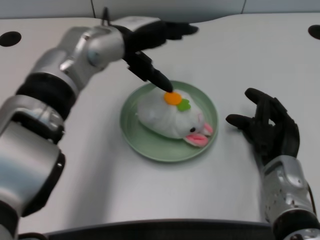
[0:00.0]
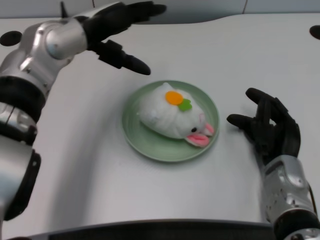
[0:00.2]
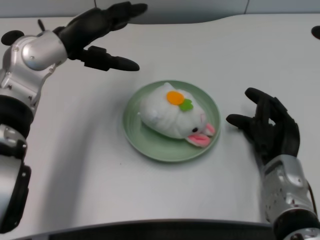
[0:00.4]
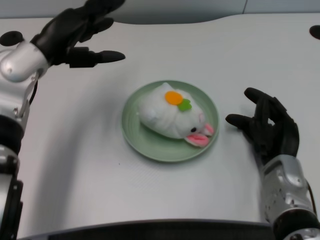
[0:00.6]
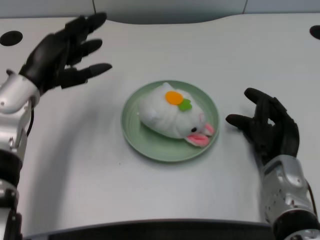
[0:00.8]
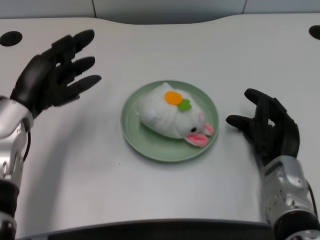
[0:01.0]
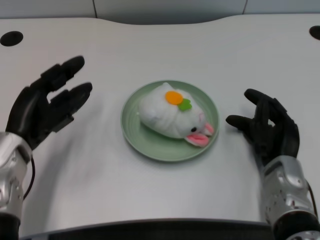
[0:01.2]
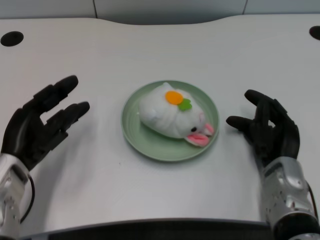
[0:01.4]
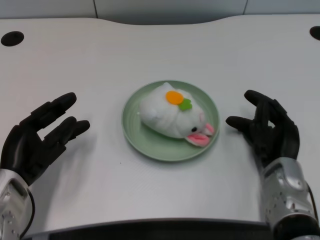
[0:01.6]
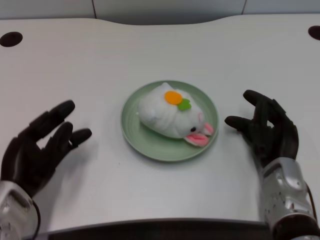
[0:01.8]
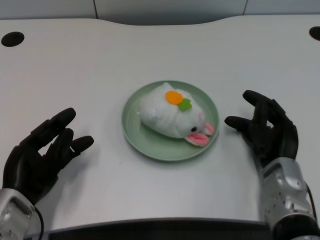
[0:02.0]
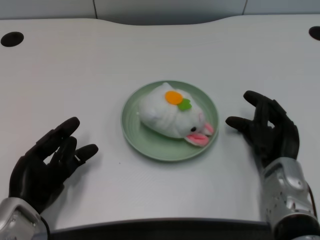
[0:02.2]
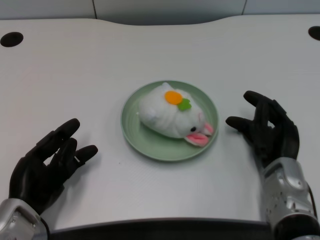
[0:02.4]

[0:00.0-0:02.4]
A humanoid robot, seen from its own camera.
Task of the whole recording: pick up the rabbit doll from the table and place it on the plate.
0:00.0 to 0:01.2: The left hand moves to the left, downward and backward, approximately 20 cm.
0:01.2 to 0:02.4: The left hand goes approximately 10 cm backward and downward.
